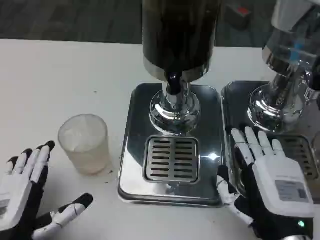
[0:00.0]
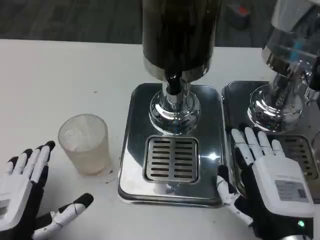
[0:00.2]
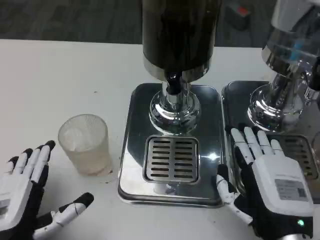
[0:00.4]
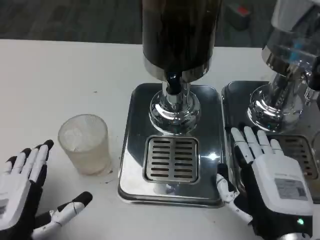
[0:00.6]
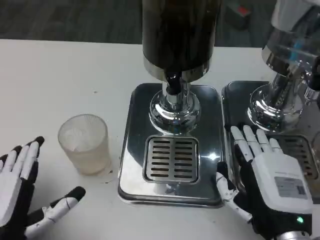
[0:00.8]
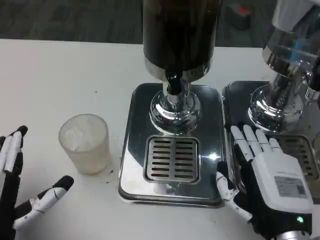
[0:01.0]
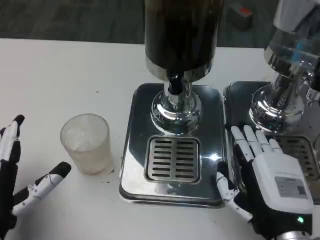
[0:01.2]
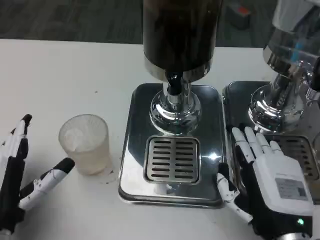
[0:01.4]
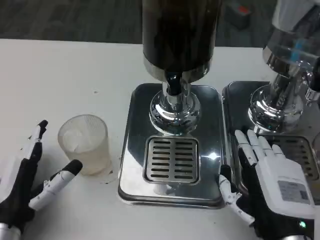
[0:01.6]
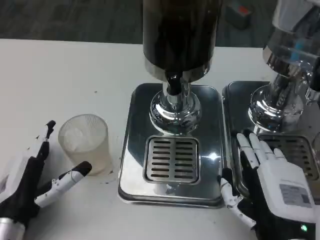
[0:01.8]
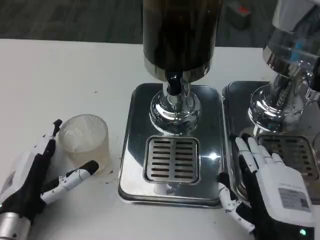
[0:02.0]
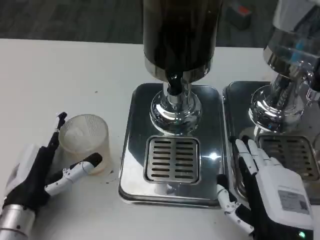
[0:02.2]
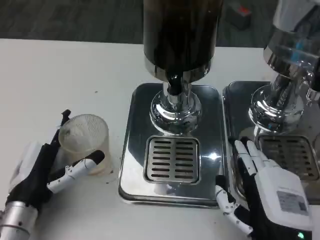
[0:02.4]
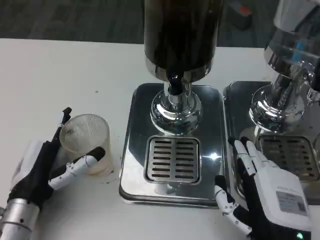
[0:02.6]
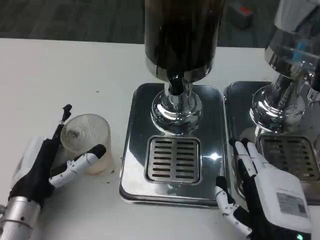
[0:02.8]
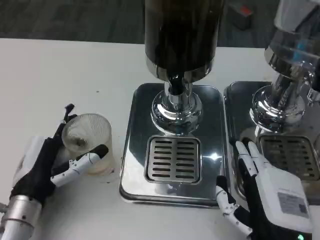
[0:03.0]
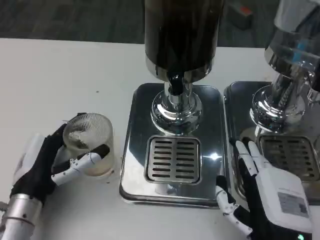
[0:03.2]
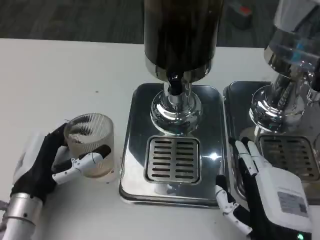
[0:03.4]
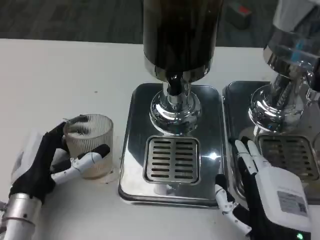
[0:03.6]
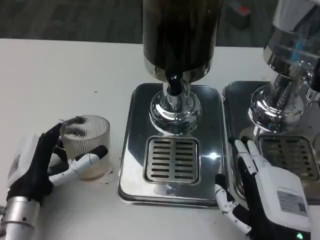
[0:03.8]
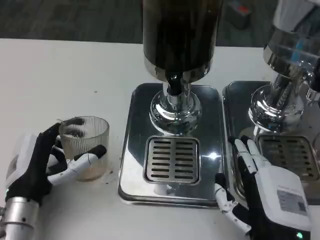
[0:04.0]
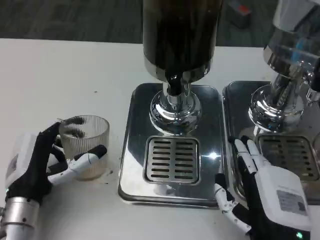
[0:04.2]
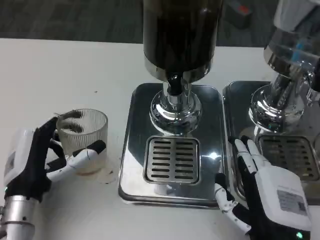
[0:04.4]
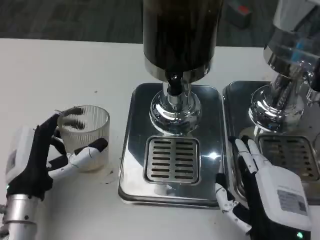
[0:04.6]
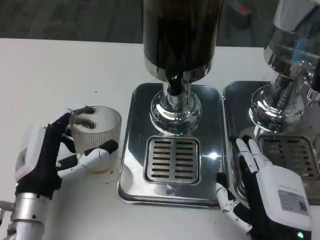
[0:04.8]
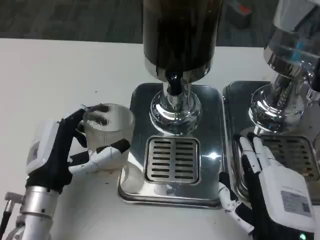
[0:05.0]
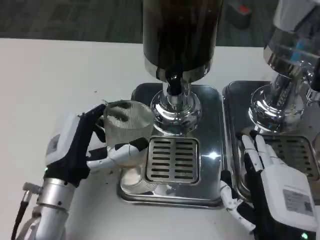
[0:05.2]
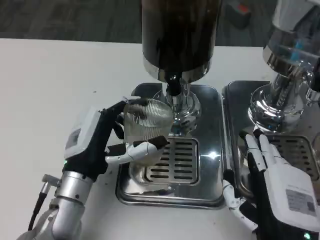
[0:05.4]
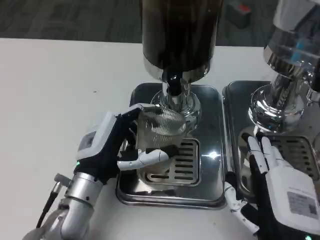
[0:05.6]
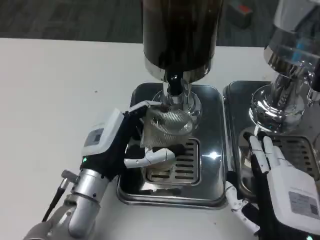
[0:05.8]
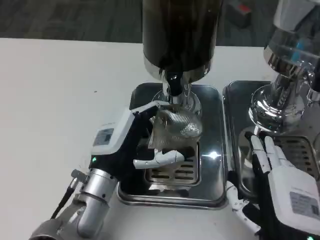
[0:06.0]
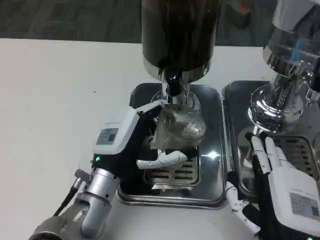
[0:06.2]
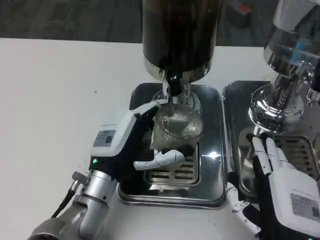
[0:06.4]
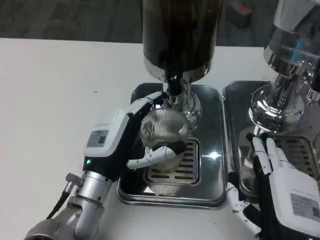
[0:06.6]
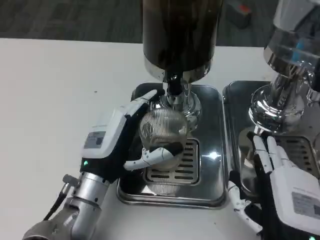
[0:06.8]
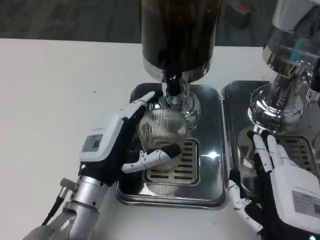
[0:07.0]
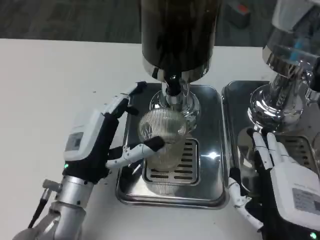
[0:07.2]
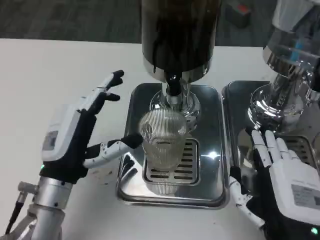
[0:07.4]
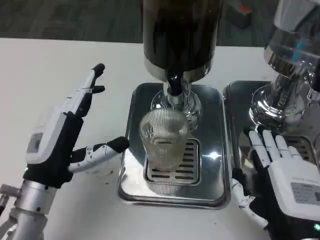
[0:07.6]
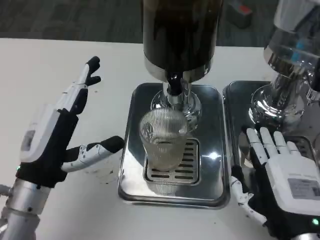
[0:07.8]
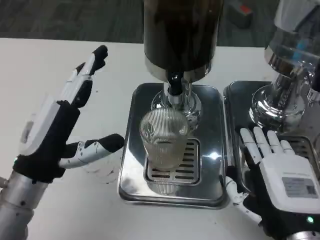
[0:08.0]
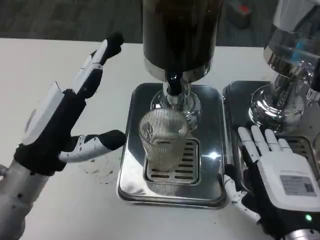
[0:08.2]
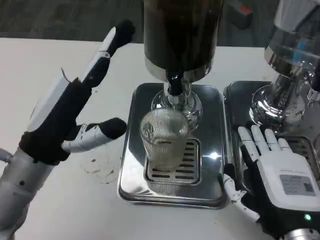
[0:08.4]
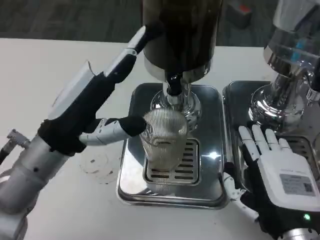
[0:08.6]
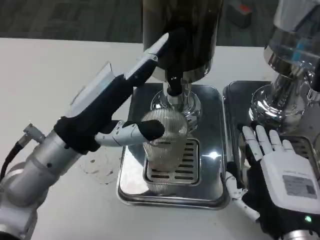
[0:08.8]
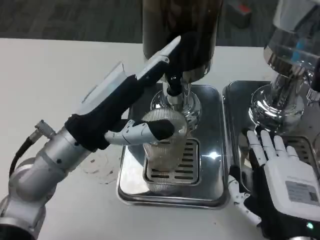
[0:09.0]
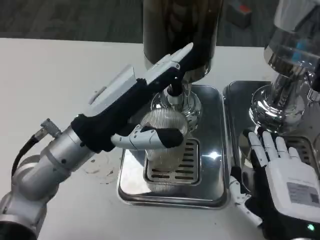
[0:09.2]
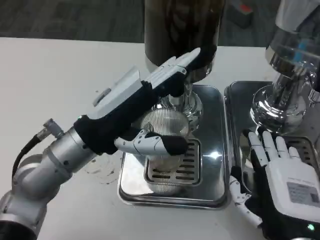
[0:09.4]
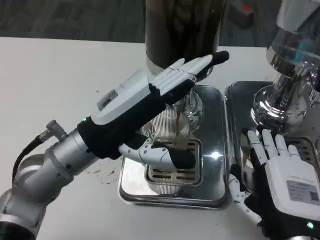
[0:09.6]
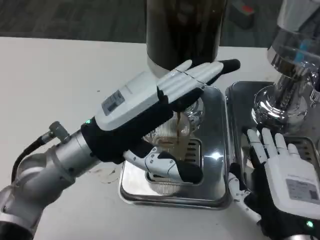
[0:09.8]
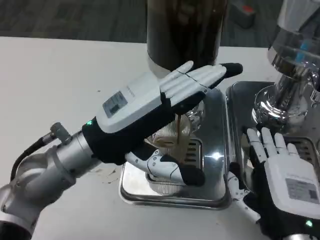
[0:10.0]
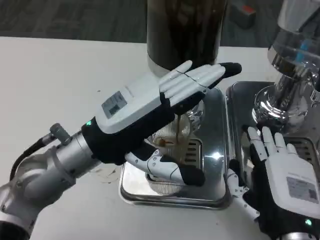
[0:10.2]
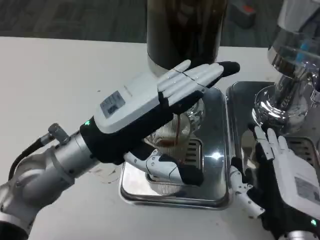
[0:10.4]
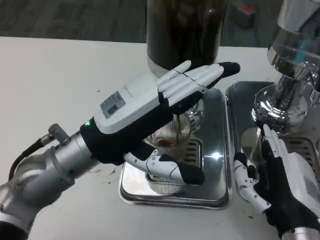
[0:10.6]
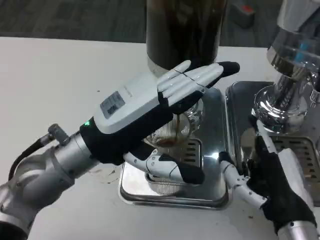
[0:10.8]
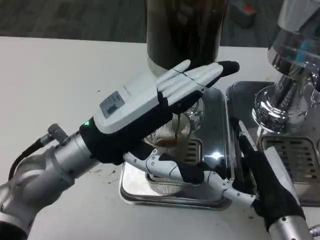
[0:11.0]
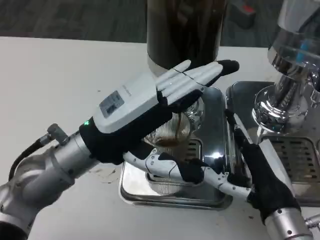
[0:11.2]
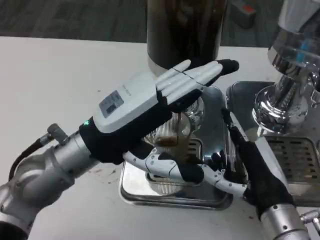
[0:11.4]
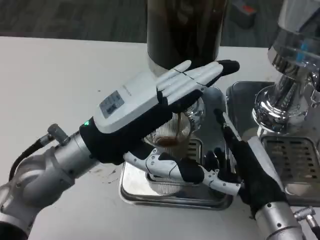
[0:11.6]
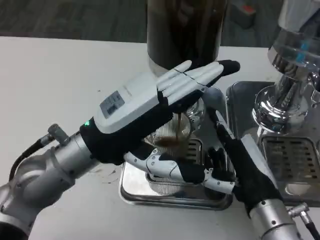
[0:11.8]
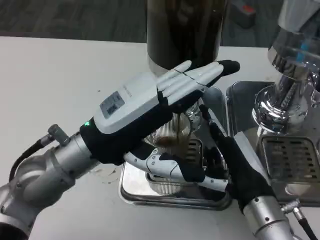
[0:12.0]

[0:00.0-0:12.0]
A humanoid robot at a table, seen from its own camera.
Task of the whole recording: Grasp the cup under the faucet to collect the drink, then remove the cup.
0:00.0 to 0:01.6: The left hand shifts by about 5 cm.
0:03.0 to 0:04.4: The hands move only a little.
0:04.4 to 0:06.0: The left hand shifts about 10 cm to the right.
0:06.0 to 0:07.6: The left hand shifts some 10 cm to the left.
0:07.6 to 0:09.0: The left hand shifts some 10 cm upward.
0:10.4 to 0:12.0: The right hand heads forward, covering approximately 5 cm.

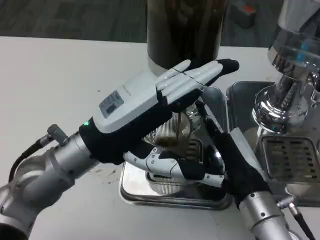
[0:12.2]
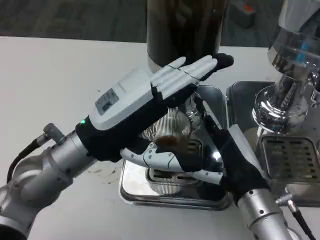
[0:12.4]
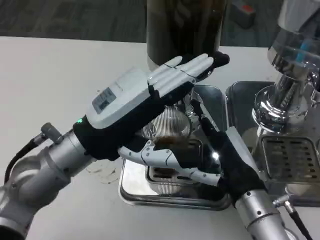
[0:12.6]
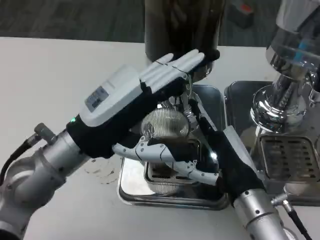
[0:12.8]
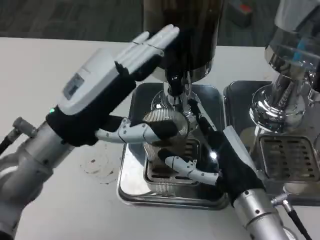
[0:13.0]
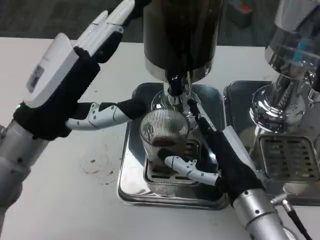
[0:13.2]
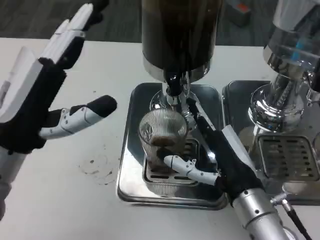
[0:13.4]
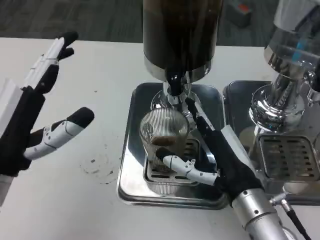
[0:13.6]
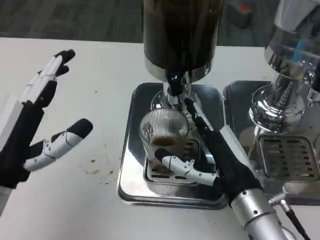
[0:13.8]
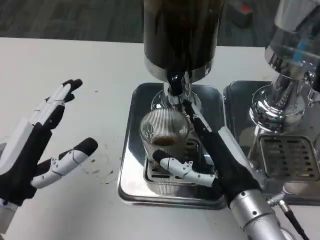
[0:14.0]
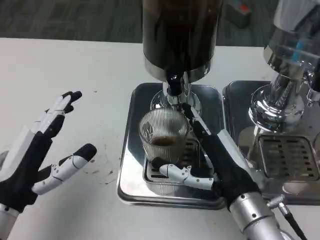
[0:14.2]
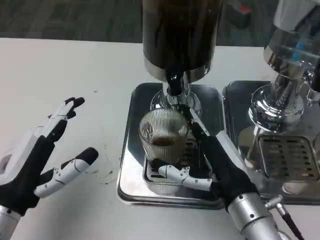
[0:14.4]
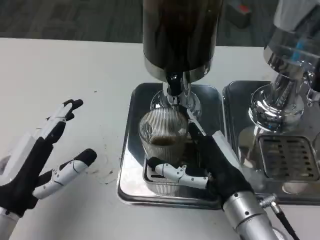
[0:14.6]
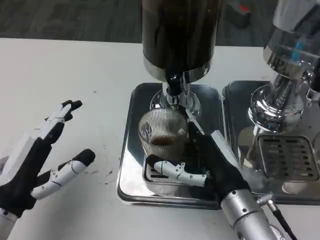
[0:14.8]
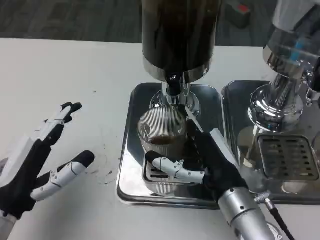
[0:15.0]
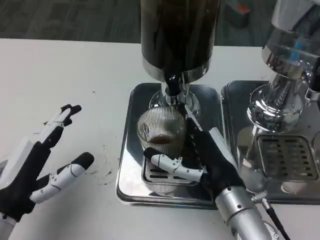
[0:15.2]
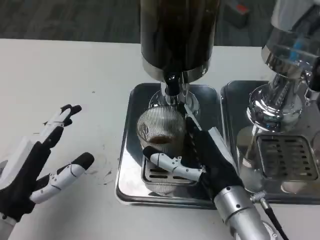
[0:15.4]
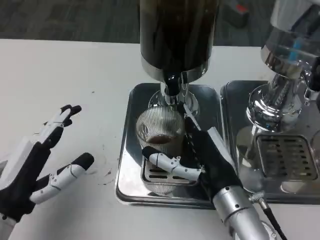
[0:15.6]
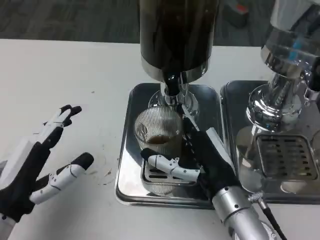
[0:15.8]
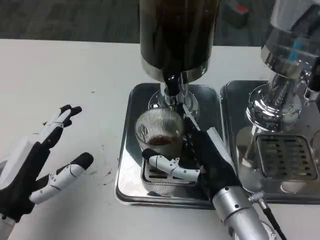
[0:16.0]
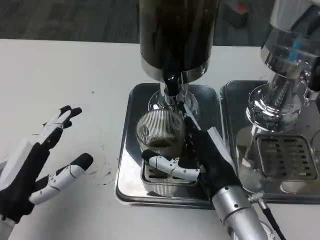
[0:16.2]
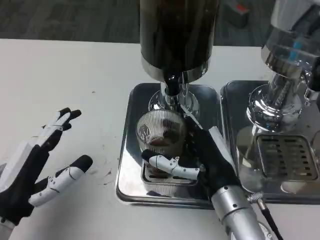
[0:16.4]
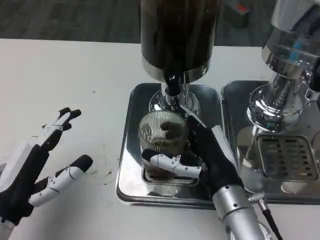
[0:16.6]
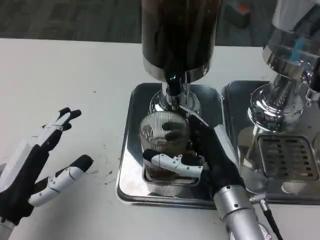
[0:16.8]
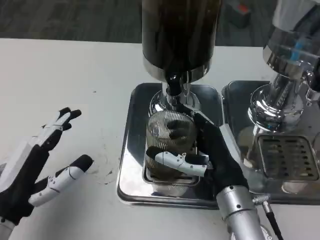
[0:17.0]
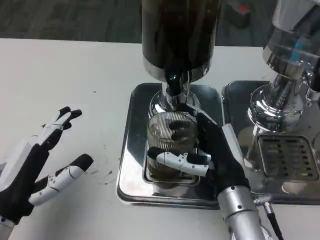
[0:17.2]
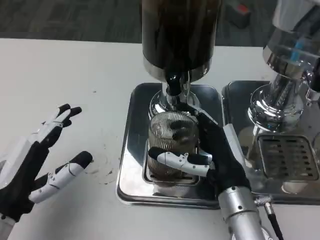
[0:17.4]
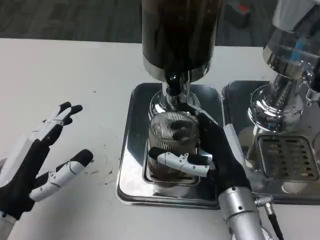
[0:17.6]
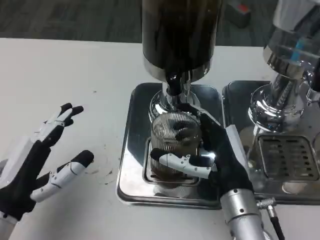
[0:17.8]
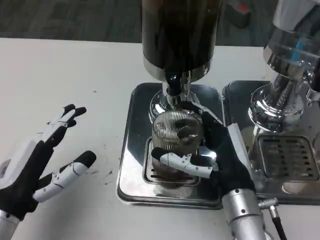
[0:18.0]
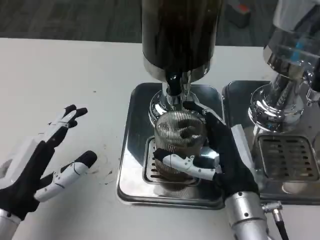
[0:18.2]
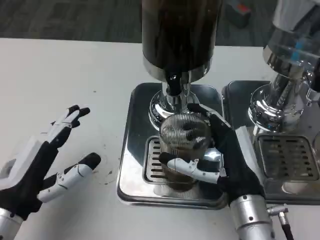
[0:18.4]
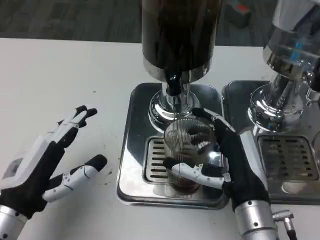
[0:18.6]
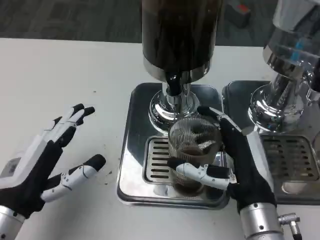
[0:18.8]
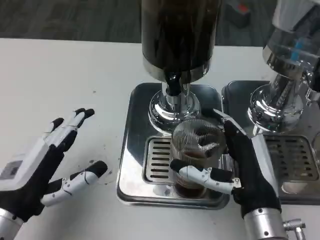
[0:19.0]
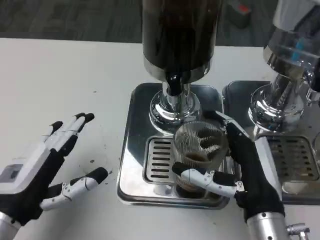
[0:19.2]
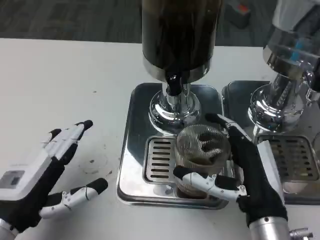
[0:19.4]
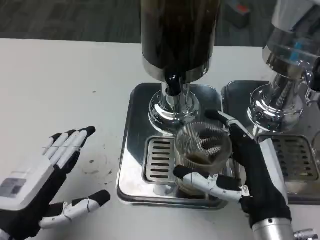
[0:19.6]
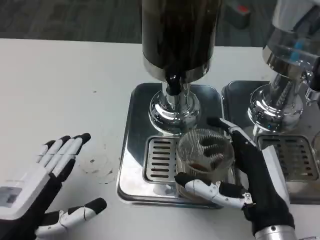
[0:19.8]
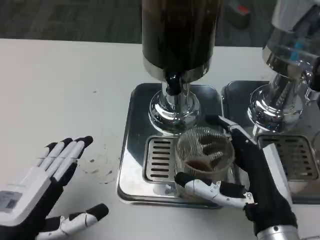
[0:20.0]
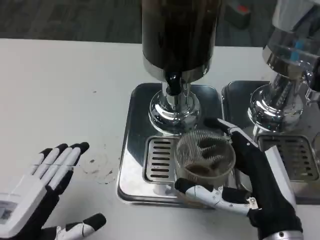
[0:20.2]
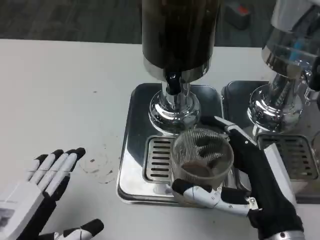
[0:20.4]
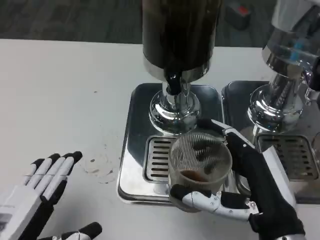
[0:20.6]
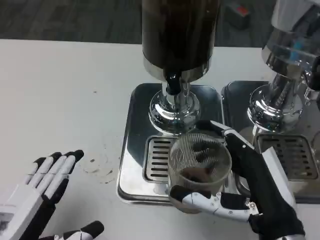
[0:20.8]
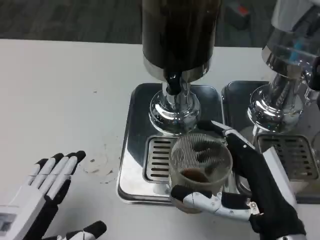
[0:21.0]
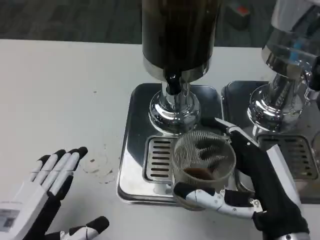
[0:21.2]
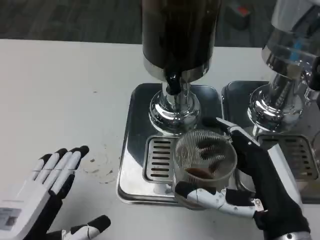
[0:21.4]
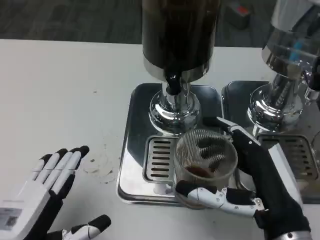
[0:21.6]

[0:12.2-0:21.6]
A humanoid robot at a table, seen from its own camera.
Task of the whole recording: Grasp the cup under the faucet to collect the drink, then remove the cup.
0:12.2 to 0:13.8: The left hand is displaced to the left and backward by some 10 cm.
0:15.4 to 0:18.4: There are only small adjustments of the hands.
0:18.4 to 0:20.0: The right hand is displaced backward by approximately 5 cm.
0:20.0 to 0:21.6: There are only small adjustments of the hands.

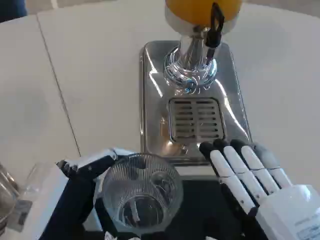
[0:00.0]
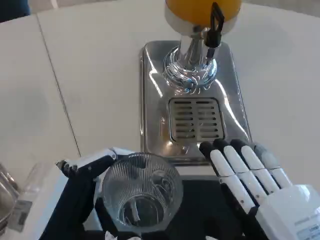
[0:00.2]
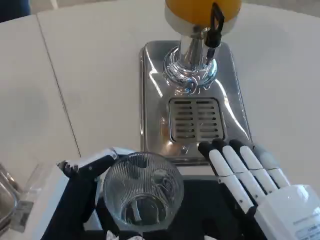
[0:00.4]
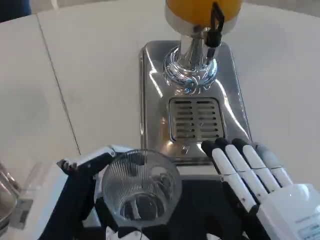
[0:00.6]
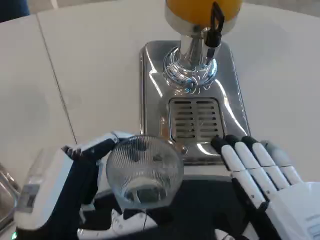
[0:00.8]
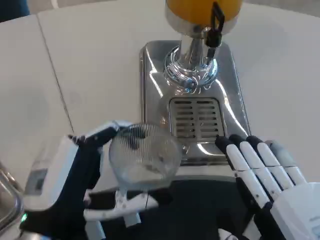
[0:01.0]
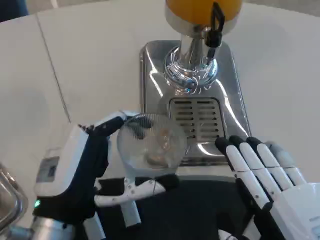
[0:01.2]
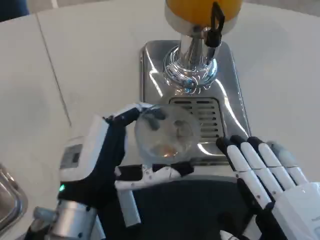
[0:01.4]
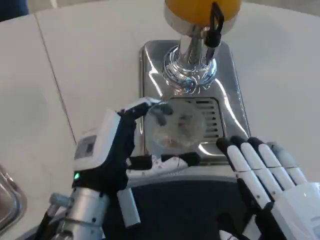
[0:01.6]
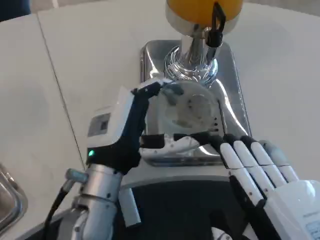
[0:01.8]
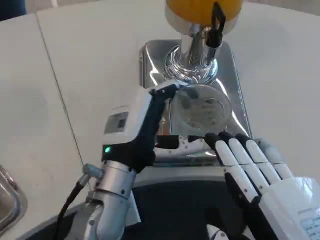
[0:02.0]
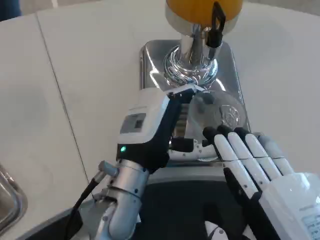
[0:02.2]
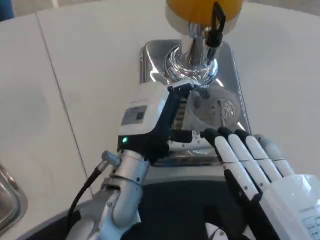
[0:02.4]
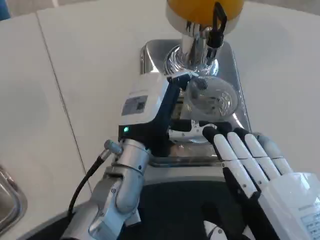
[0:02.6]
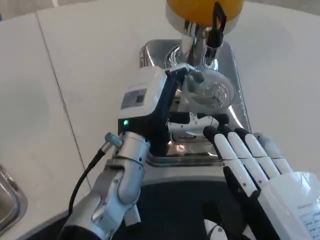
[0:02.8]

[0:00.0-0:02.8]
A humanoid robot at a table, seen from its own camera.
Task of the whole recording: Grasp the cup under the faucet to collect the drink, then remove the cup.
0:00.0 to 0:01.4: The left hand heads forward, covering approximately 10 cm.
0:01.4 to 0:02.8: The left hand travels forward and to the right by roughly 10 cm.
